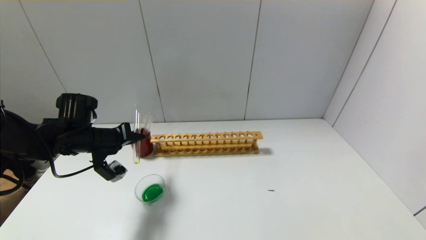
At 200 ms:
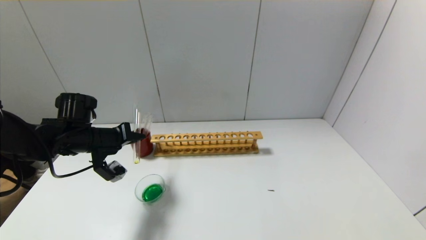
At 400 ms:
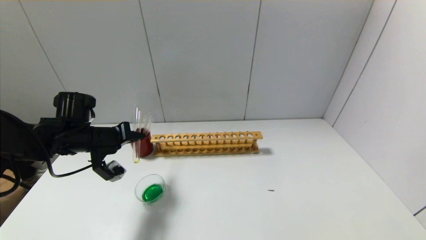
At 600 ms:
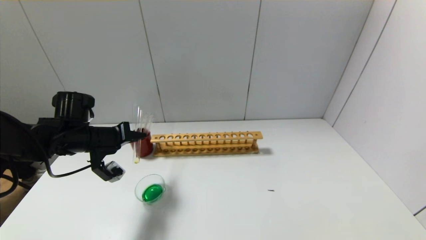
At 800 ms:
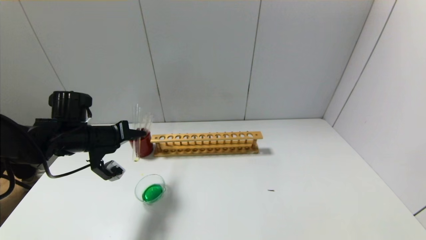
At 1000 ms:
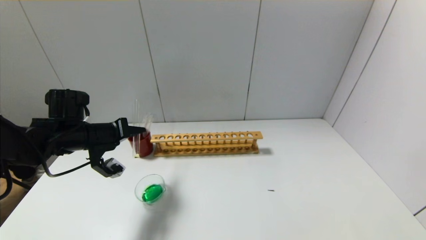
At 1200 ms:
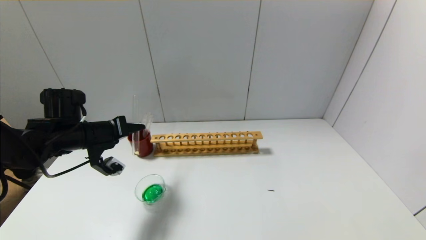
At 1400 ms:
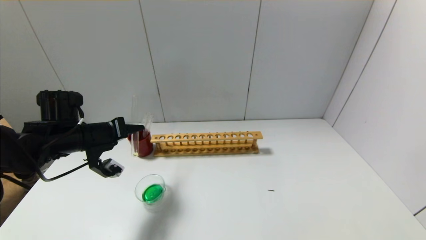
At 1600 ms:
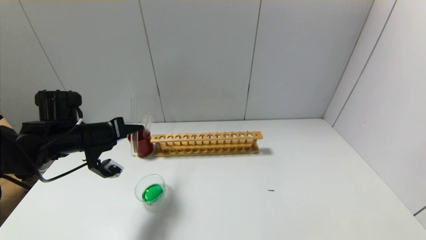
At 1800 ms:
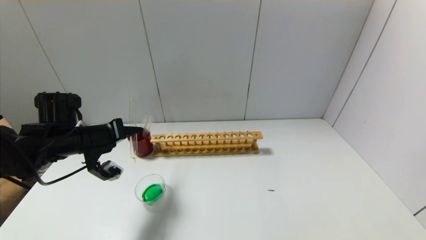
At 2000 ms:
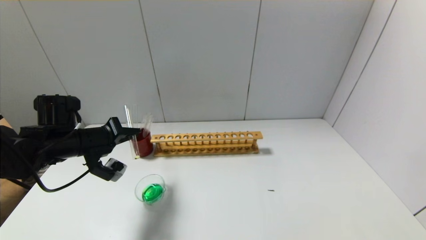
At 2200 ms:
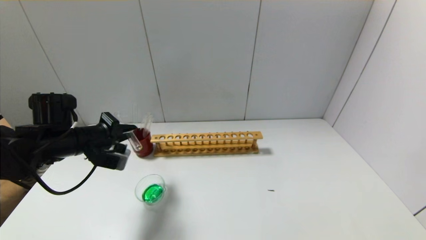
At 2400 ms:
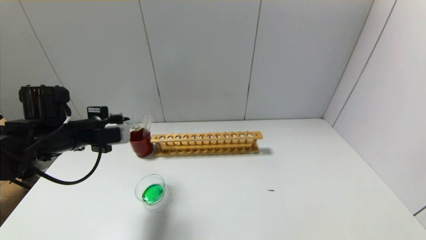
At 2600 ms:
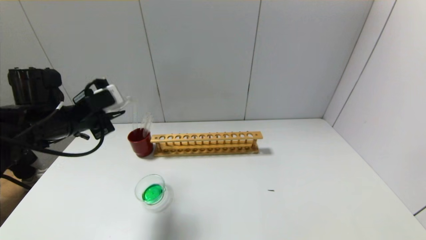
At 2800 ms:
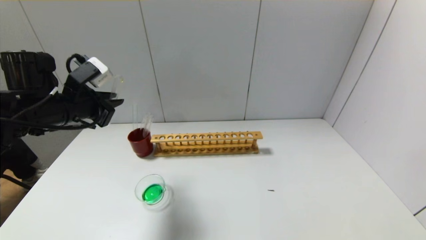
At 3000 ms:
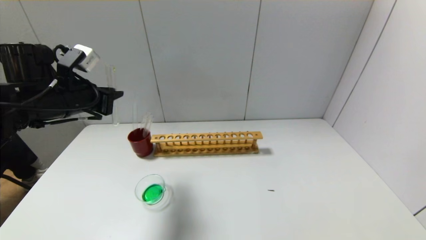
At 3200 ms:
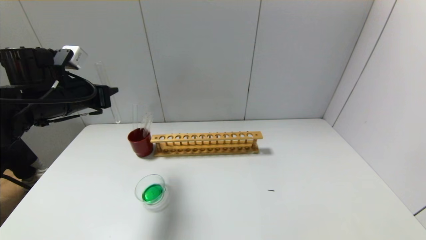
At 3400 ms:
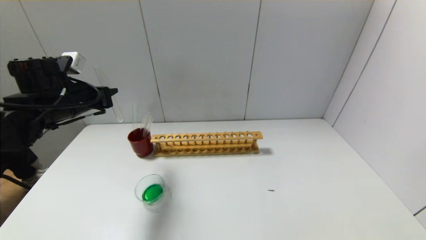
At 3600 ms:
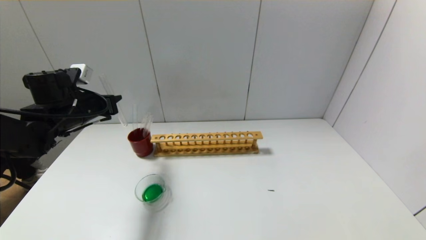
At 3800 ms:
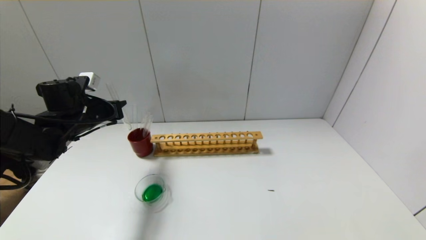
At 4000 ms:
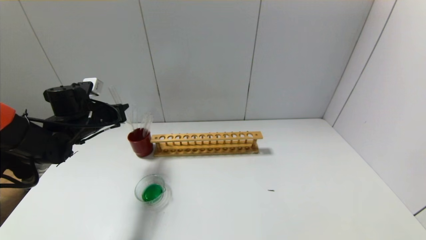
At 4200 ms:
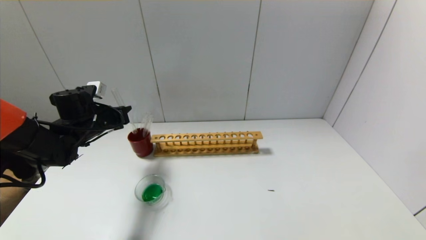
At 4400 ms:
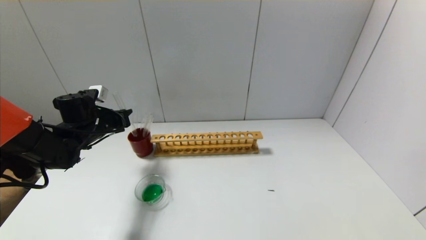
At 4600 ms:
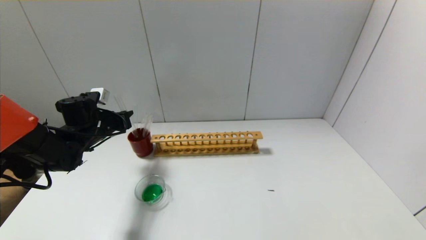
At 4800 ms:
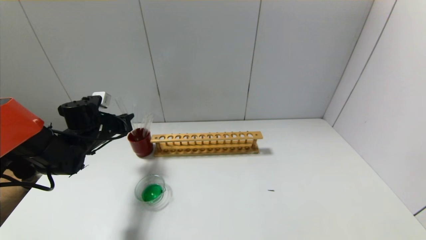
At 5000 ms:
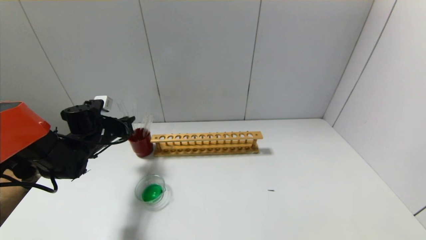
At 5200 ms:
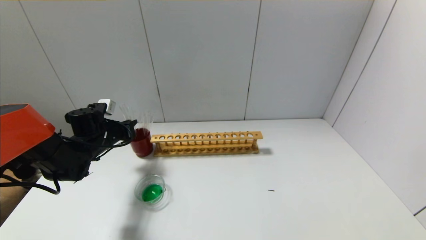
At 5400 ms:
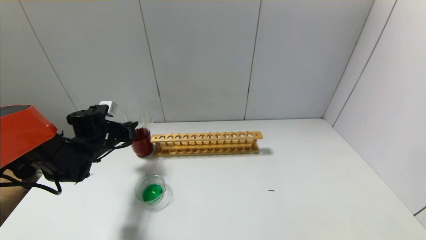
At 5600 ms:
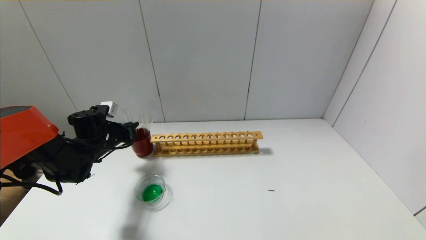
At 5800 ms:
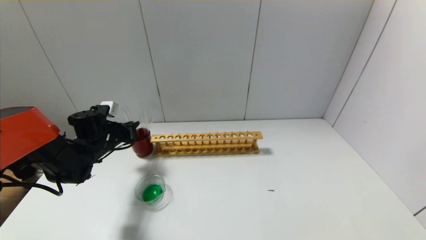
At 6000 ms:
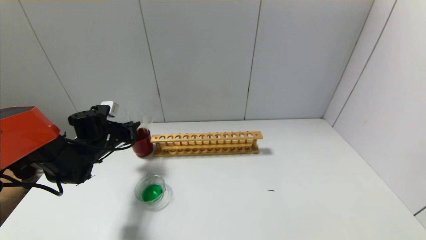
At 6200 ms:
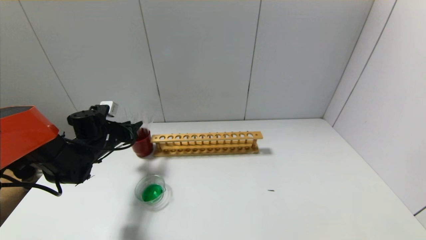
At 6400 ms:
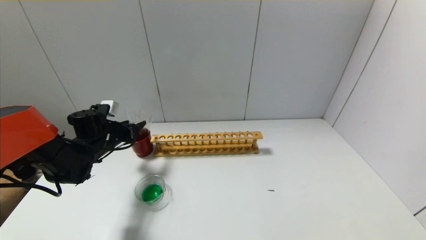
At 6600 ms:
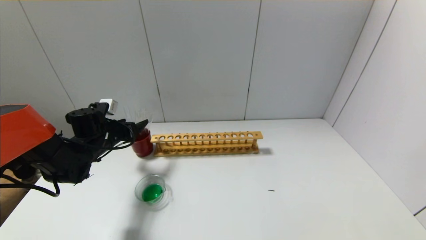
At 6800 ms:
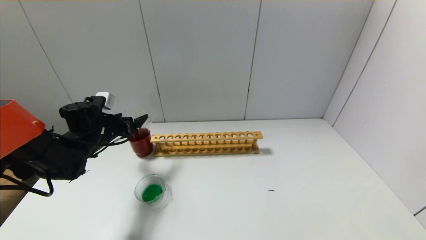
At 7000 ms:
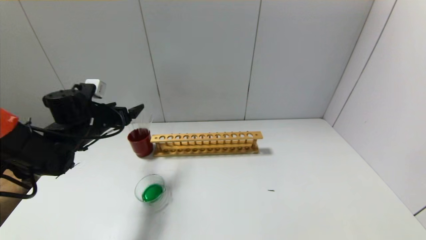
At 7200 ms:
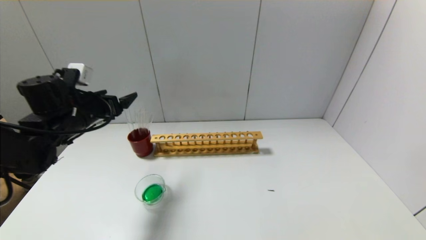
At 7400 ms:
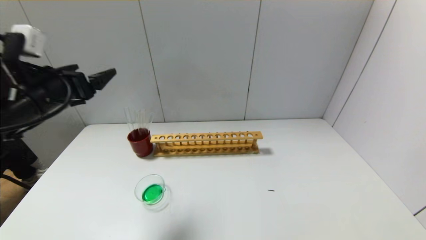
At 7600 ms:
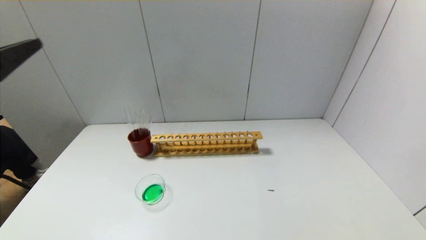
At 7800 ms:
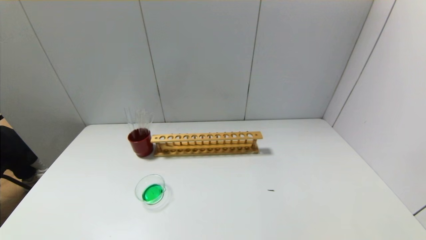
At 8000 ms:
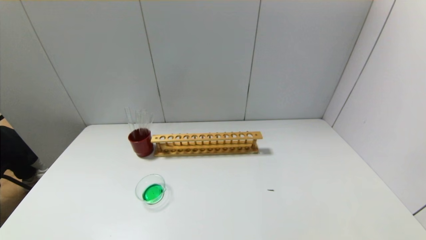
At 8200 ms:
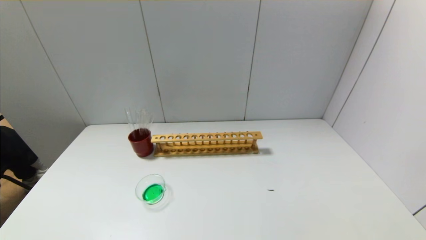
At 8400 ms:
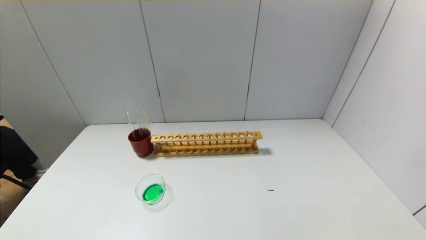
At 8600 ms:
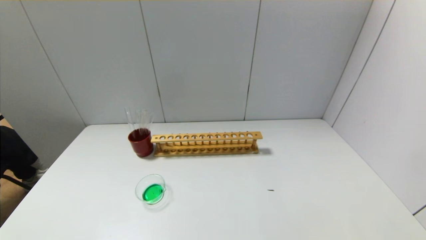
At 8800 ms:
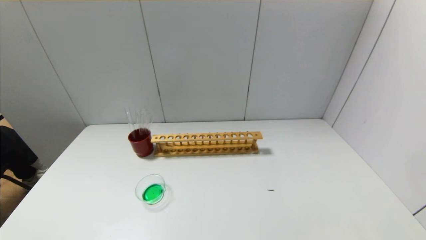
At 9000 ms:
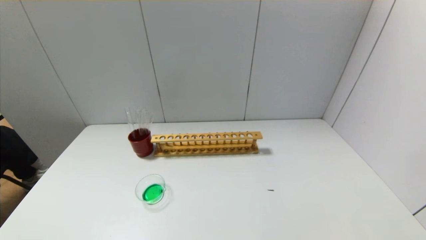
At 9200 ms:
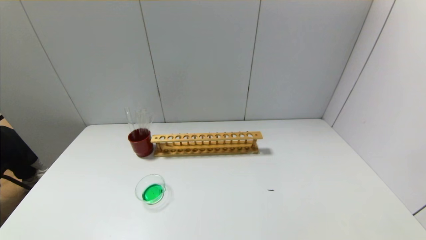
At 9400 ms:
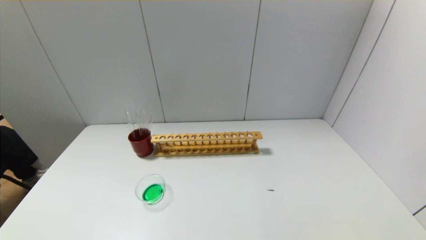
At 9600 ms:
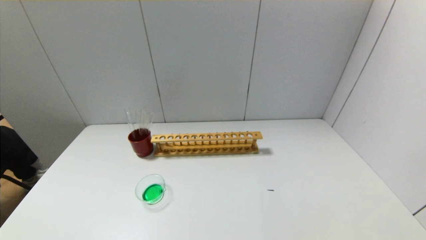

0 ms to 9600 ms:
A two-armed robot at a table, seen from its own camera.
Step, 0 ms to 2200 ms: Pour the yellow reagent into the graduated cylinder with the left gripper.
Step, 2400 ms to 6200 ms: Place the test tube into the brown cup with the left gripper.
0 ms to 1600 ms: There are only small adjustments of the grippers.
1600 ms to 3200 ms: The left gripper heads upward, covering some 10 cm.
3200 ms to 4800 ms: The left gripper travels downward and forward by about 15 cm.
4800 ms to 6400 ms: The left gripper opens its fingers.
6400 ms to 8000 ms: The left gripper moves backward and upward, about 50 cm.
